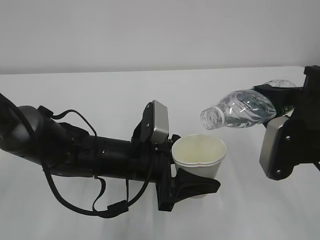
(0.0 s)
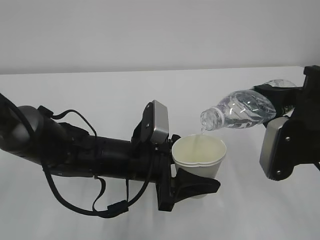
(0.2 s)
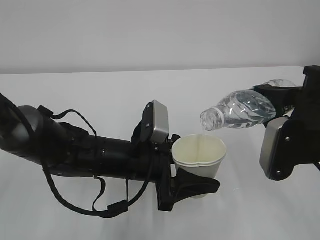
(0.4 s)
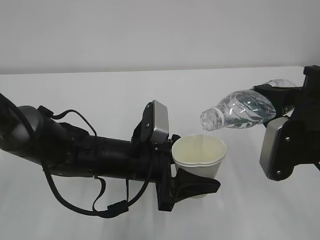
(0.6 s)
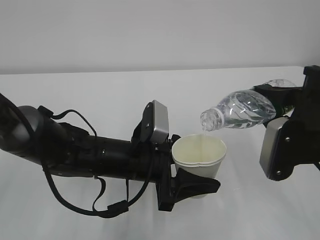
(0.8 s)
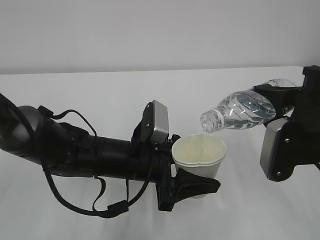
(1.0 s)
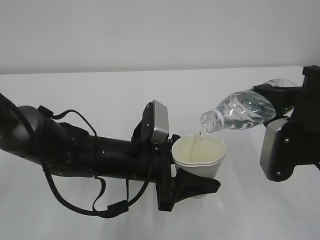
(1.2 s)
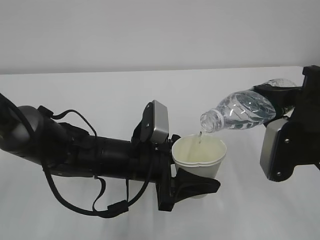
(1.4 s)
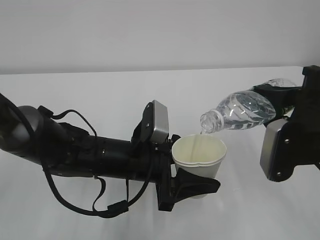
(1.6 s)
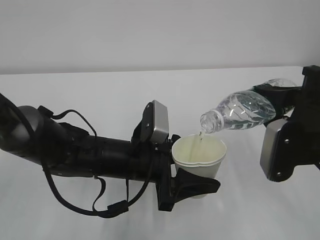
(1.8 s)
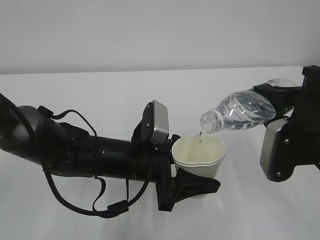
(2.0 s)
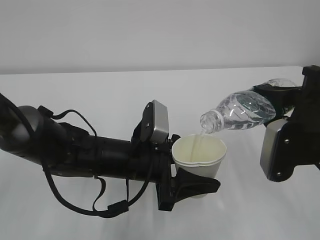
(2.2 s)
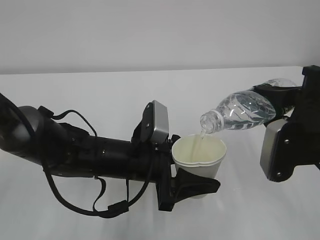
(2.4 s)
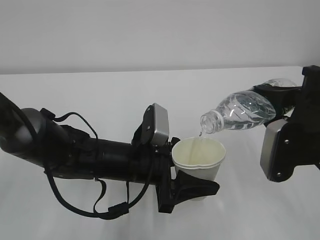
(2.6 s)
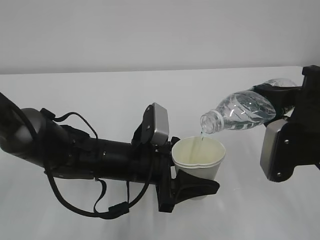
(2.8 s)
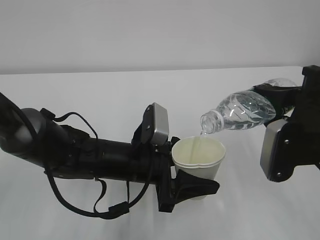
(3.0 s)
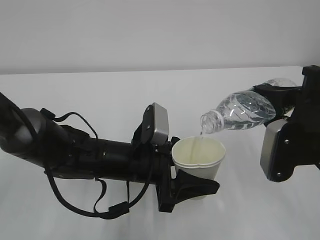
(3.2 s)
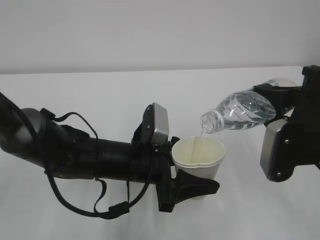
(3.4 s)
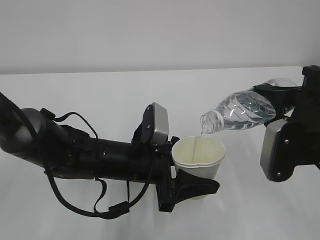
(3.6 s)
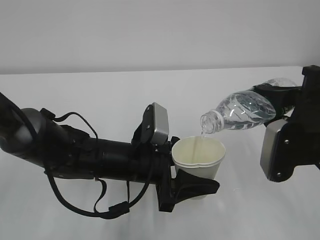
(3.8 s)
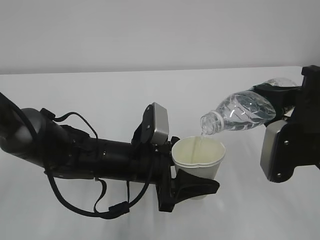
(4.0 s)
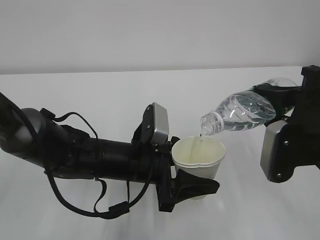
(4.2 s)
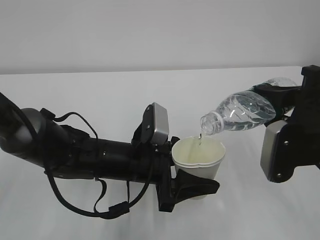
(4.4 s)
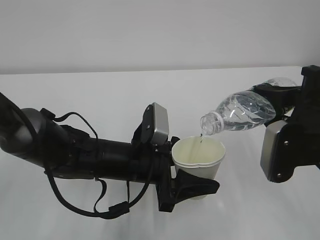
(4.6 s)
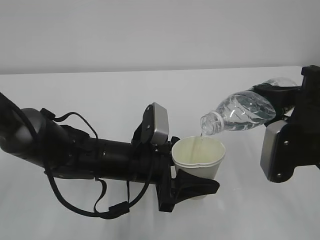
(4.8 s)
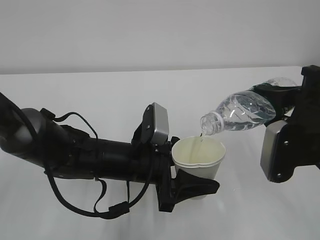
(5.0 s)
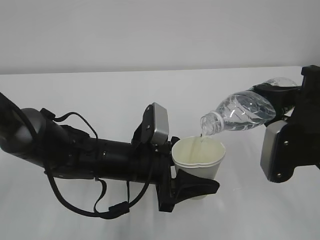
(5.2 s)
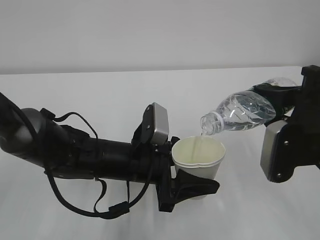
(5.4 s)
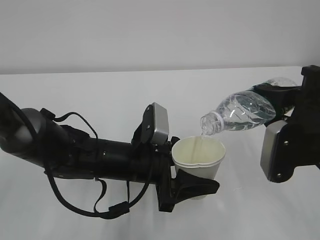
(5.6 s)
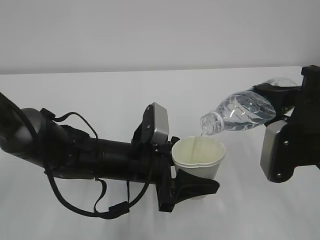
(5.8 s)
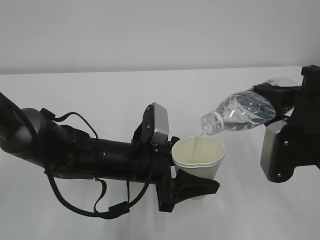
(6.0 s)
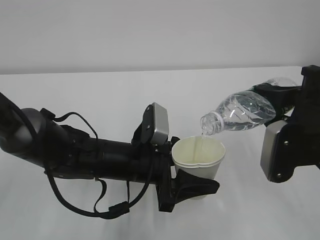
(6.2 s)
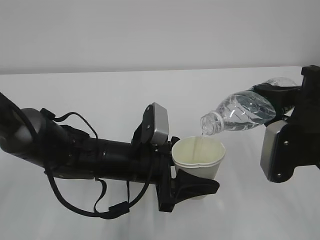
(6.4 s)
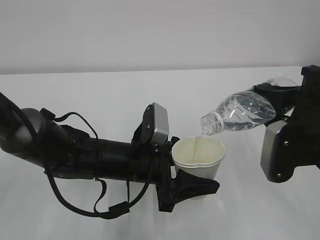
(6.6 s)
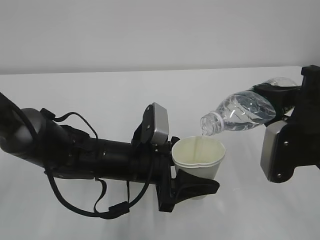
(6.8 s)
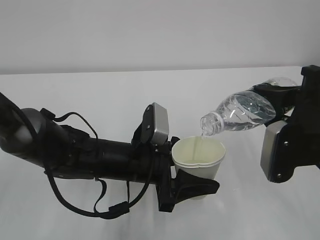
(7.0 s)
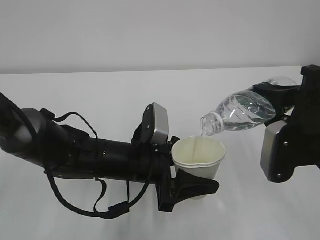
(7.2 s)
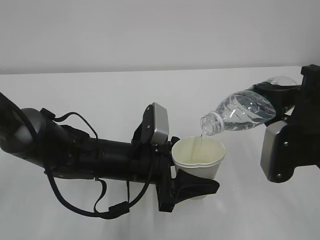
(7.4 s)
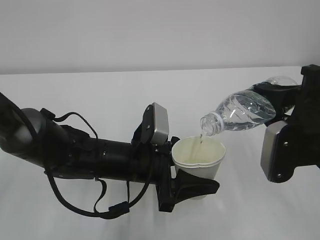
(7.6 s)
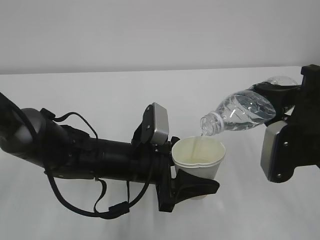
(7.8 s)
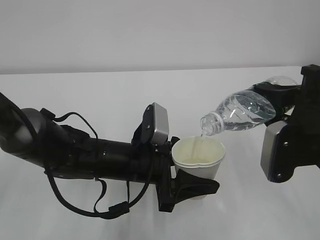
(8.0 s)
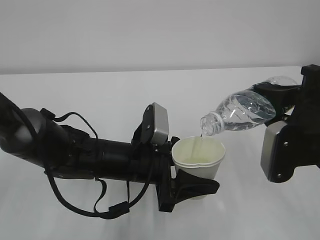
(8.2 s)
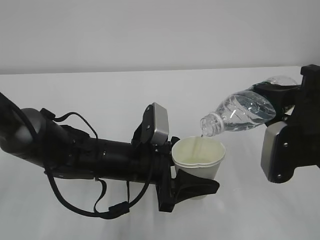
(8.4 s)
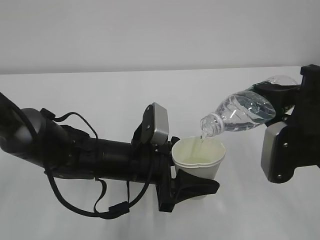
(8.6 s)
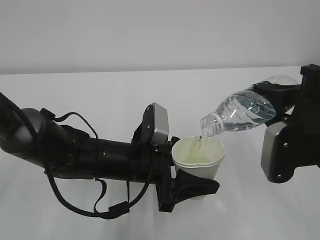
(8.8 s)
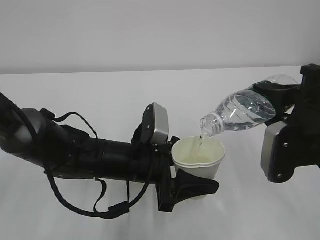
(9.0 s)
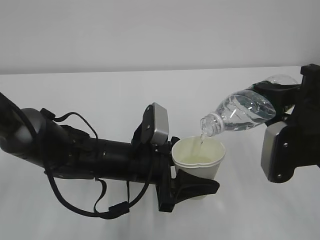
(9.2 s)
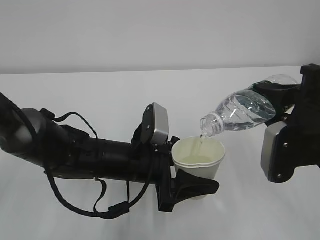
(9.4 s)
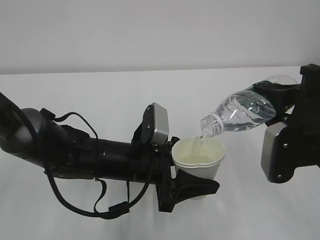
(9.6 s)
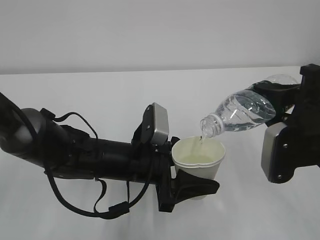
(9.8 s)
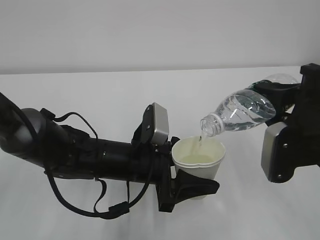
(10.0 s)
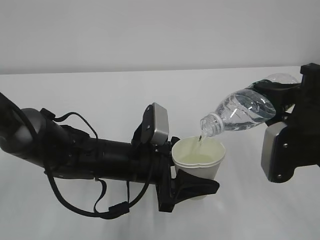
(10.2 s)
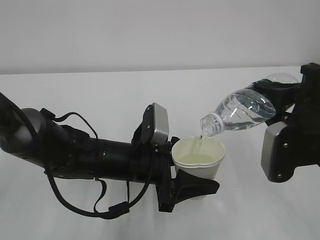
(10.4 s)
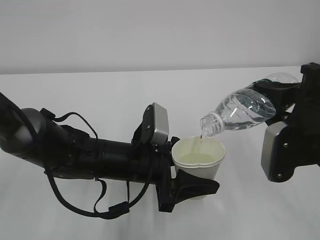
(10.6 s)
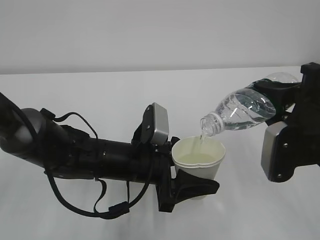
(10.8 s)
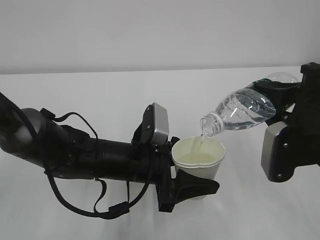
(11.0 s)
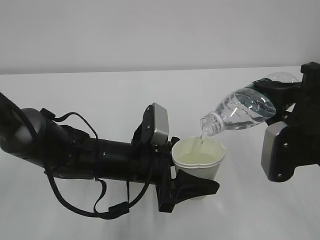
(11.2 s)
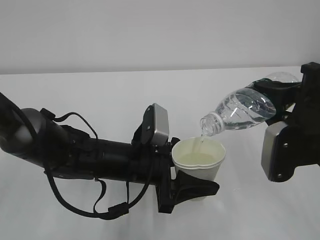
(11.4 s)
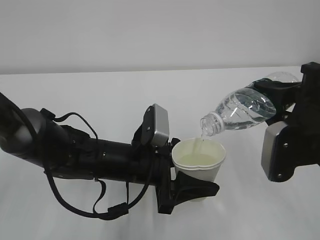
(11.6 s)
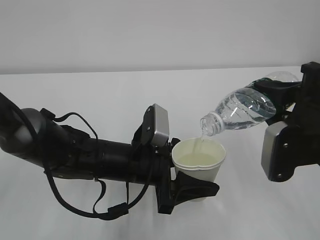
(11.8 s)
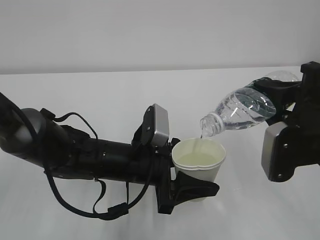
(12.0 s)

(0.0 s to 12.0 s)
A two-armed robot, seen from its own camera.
0.0 s - 6.0 s: The two grippers keep their place.
6.0 s - 10.4 s: Both grippers stay about where they are.
10.4 s - 12.0 s: The two grippers keep their place.

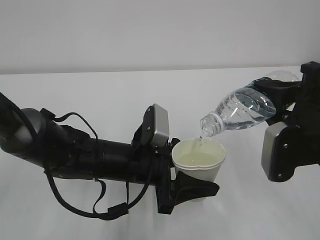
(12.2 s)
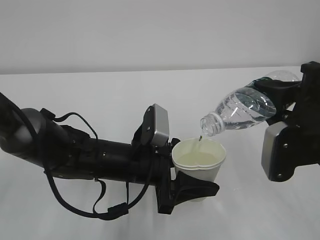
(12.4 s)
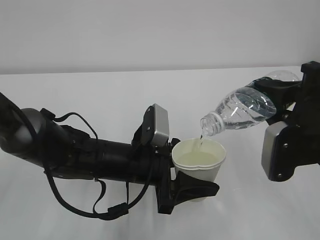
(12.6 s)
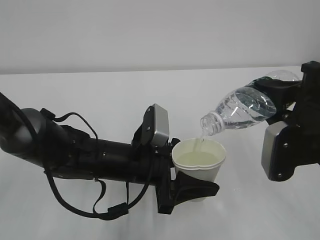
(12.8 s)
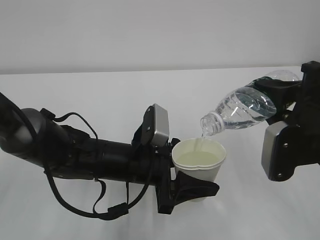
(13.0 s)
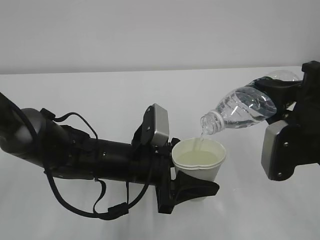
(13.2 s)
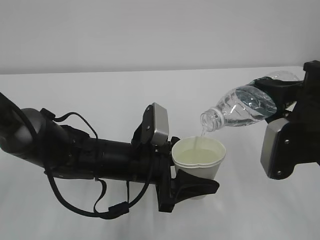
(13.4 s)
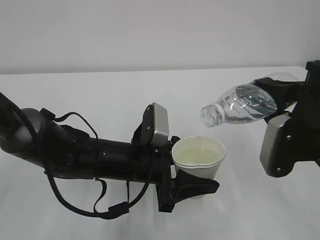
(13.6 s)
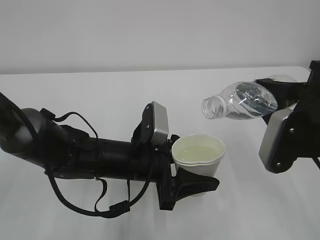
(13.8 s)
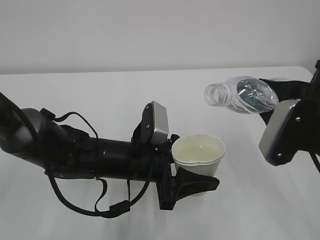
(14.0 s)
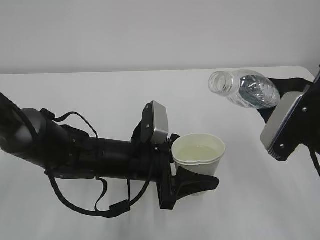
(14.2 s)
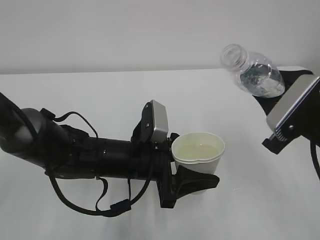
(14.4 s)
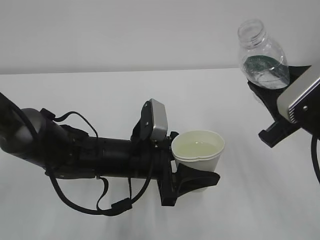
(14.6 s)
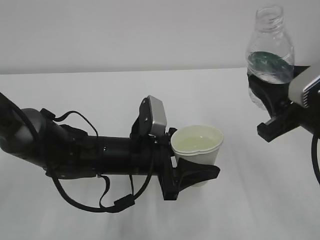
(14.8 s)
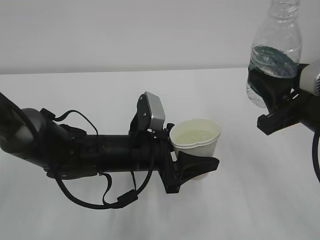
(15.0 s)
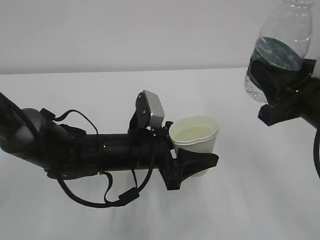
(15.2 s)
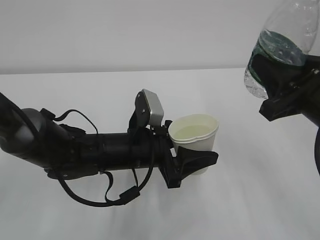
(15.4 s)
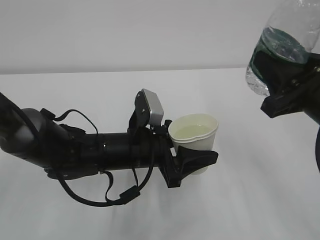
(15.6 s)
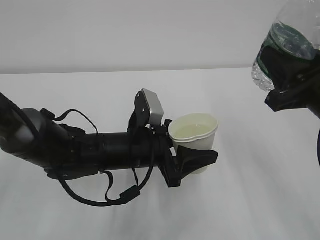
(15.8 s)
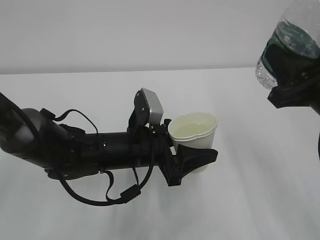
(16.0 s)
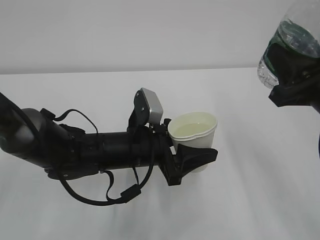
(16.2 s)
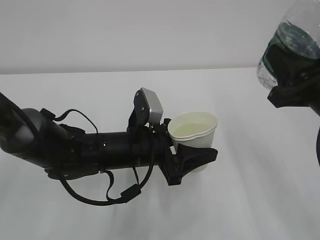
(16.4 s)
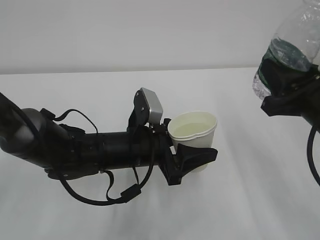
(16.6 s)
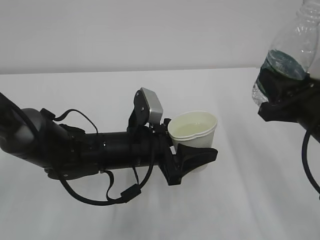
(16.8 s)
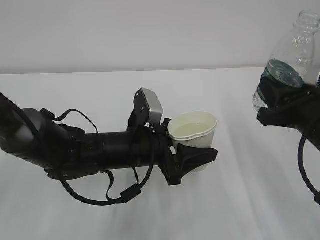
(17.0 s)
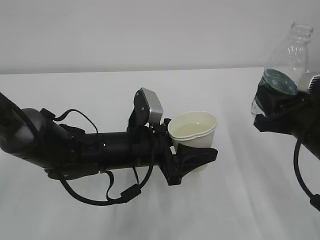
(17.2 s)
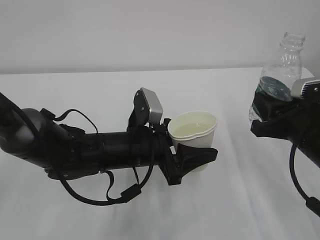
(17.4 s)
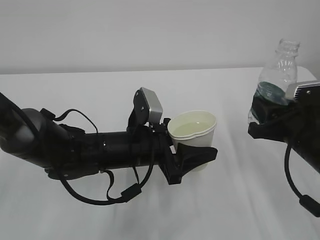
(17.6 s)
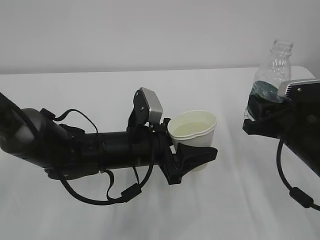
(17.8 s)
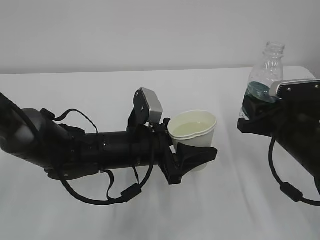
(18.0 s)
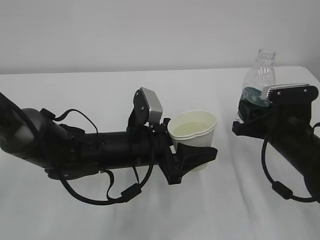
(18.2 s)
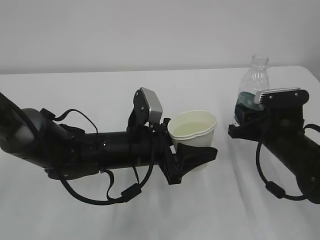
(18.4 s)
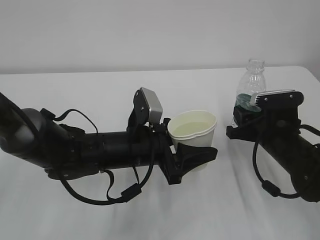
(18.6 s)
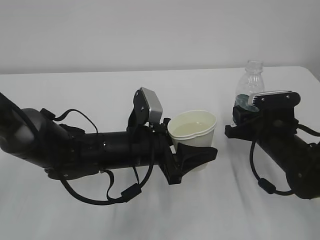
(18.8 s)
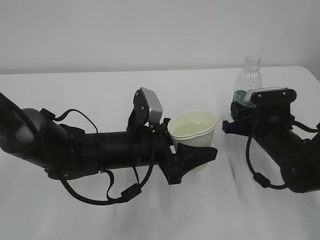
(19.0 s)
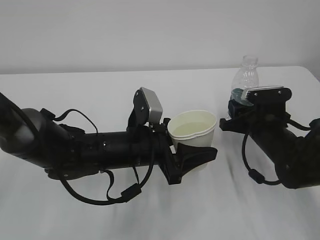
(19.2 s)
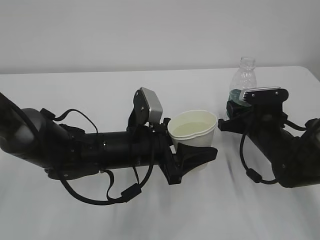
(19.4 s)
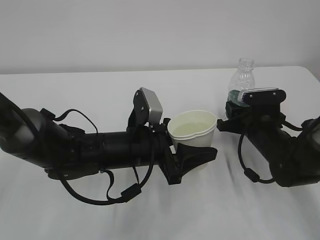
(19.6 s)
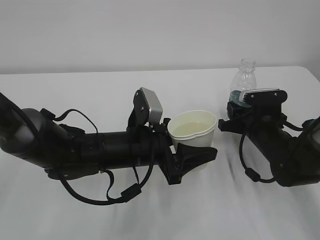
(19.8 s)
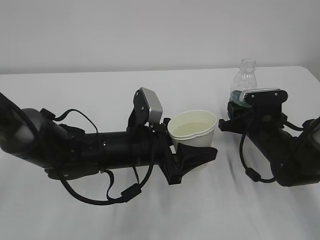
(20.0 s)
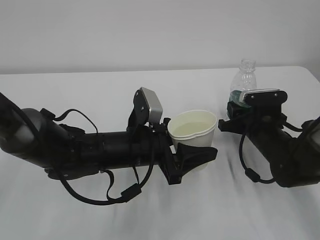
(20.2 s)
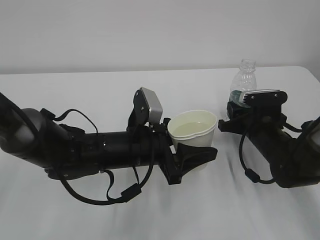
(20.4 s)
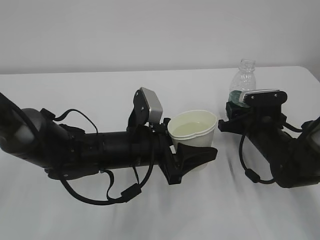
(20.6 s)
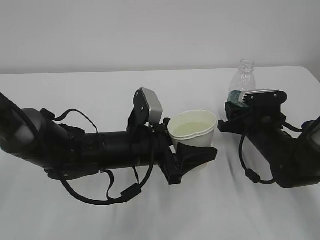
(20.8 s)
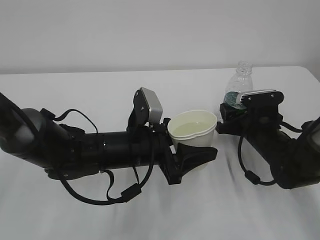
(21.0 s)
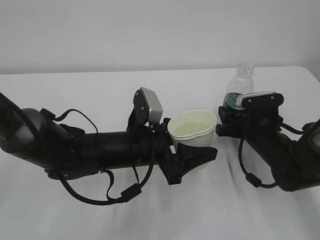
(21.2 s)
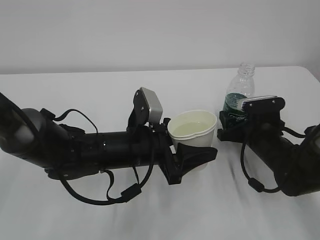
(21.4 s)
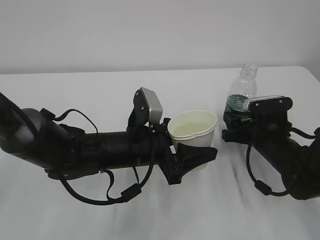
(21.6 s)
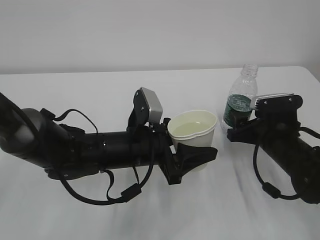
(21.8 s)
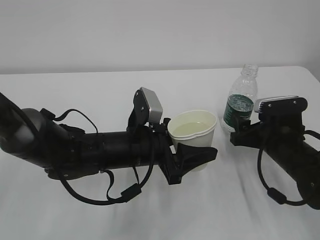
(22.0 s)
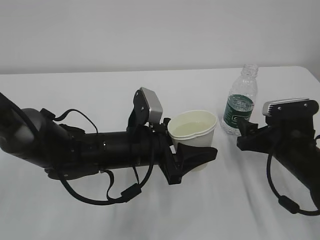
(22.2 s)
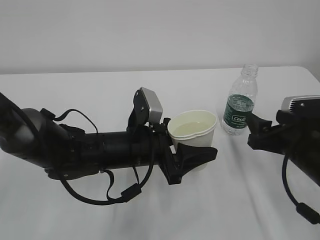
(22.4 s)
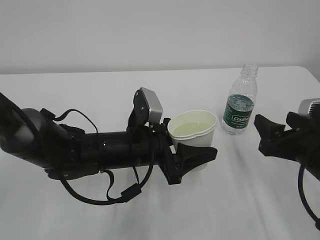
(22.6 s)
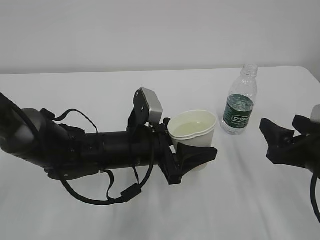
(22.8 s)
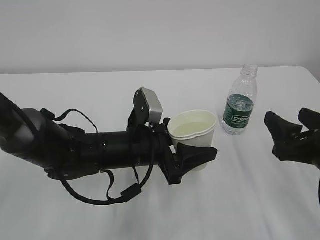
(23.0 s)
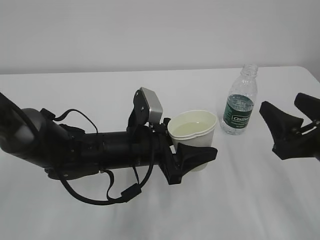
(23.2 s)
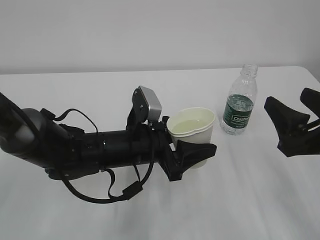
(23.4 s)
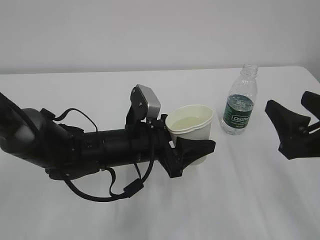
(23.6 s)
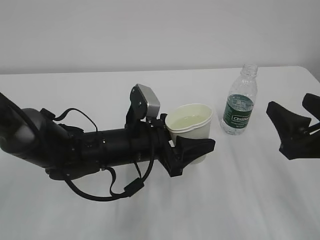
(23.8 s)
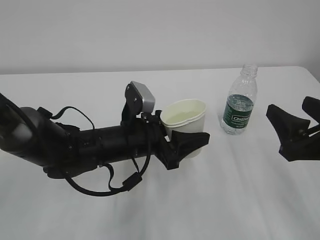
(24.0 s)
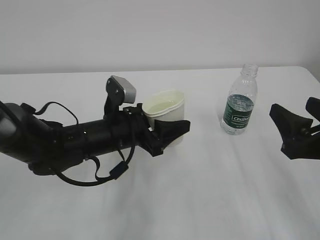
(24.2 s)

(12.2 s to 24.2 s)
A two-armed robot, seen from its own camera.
12.2 s - 13.8 s: There are only small adjustments of the grippers.
15.2 s - 16.6 s: There are only small adjustments of the grippers.
16.6 s - 18.2 s: The right gripper shifts some 10 cm downward and forward.
18.2 s - 19.8 s: The right gripper goes some 5 cm forward.
19.8 s - 21.2 s: The right gripper opens its fingers.
21.2 s - 22.6 s: The right gripper shifts about 15 cm backward and upward.
22.6 s - 24.2 s: The right gripper ends up about 5 cm from where it was.
